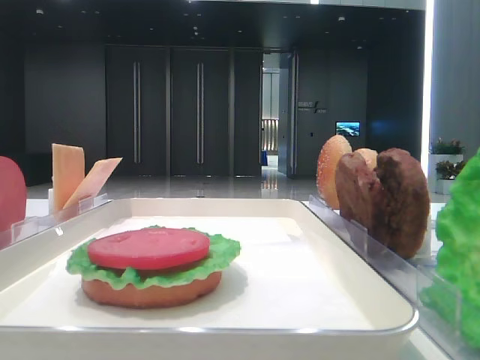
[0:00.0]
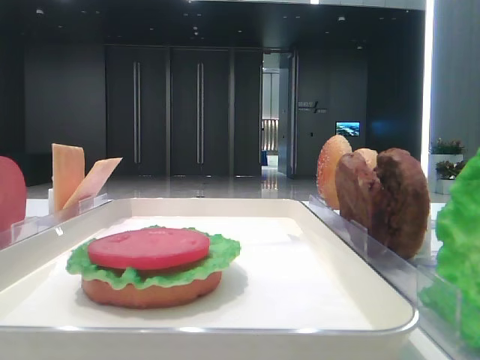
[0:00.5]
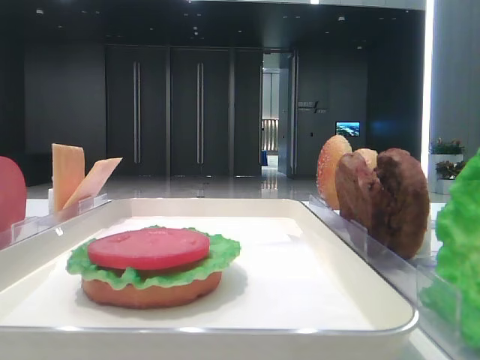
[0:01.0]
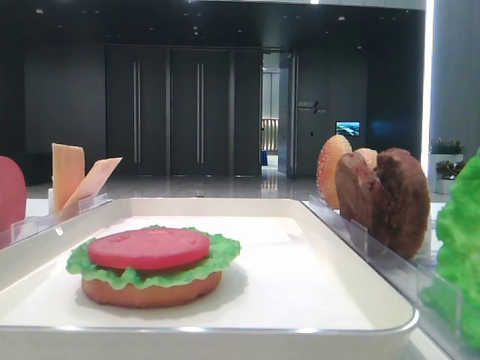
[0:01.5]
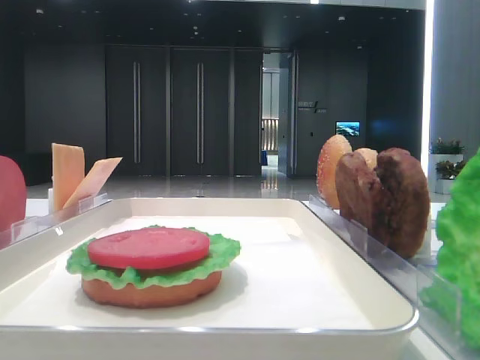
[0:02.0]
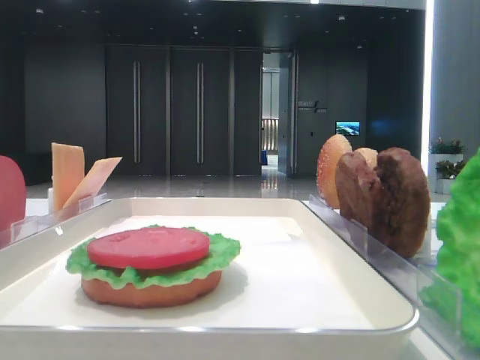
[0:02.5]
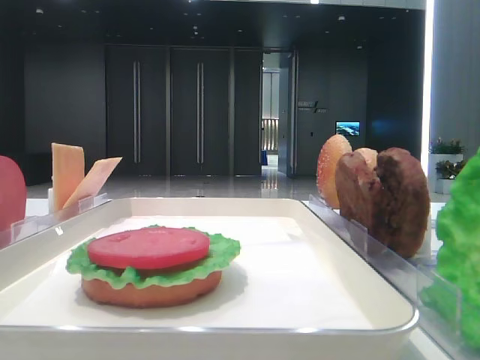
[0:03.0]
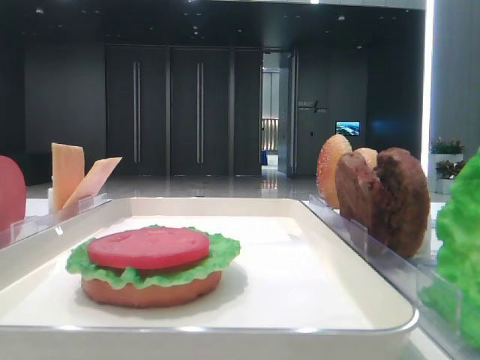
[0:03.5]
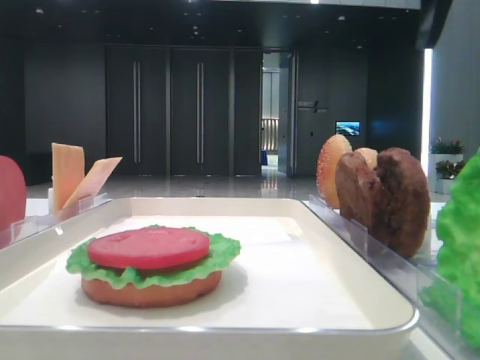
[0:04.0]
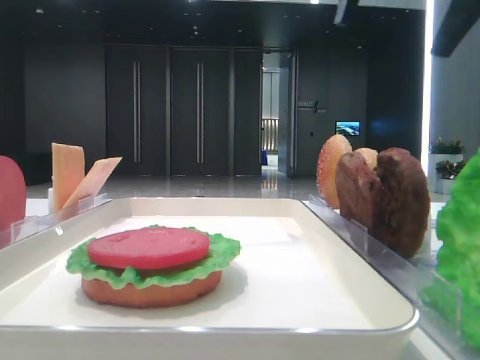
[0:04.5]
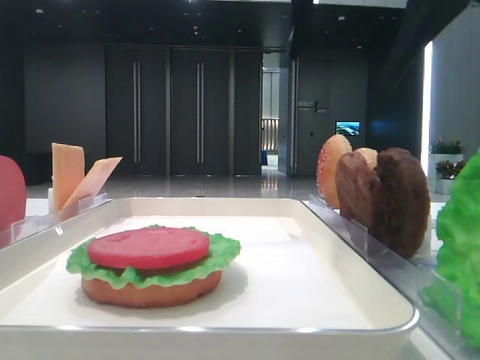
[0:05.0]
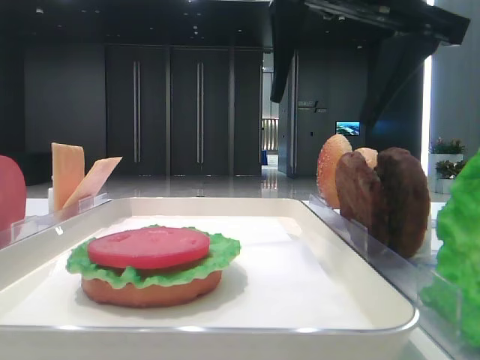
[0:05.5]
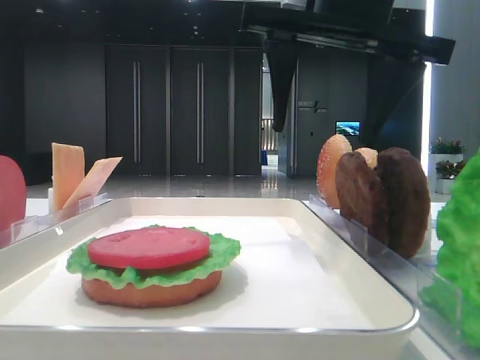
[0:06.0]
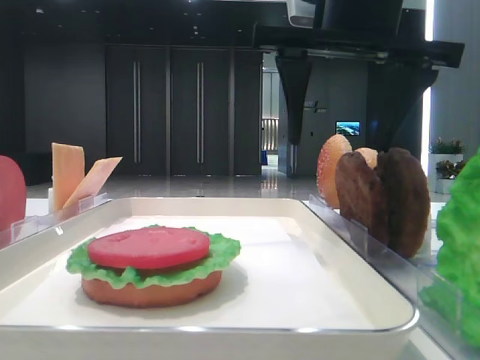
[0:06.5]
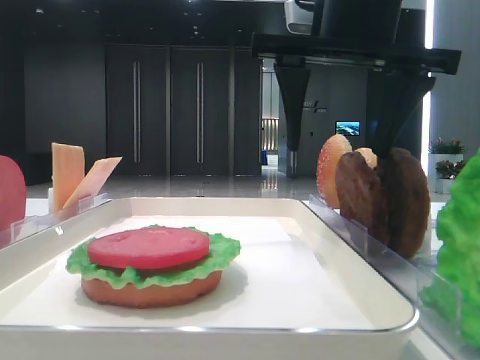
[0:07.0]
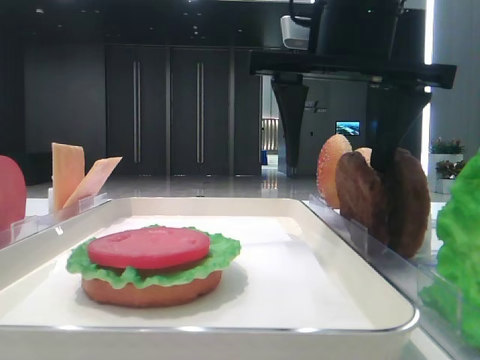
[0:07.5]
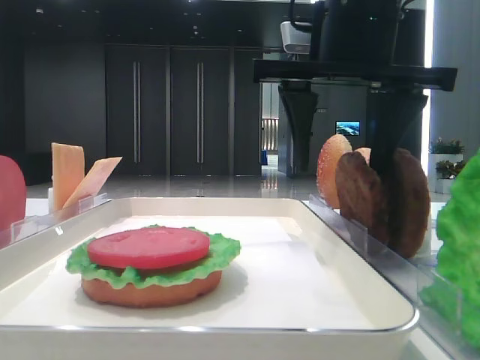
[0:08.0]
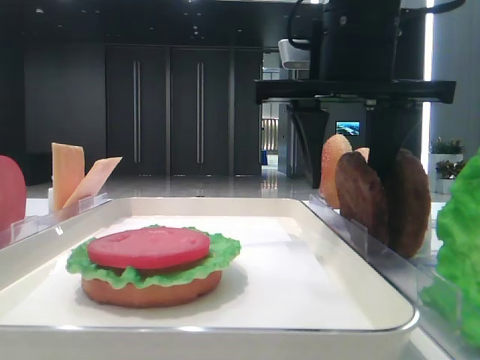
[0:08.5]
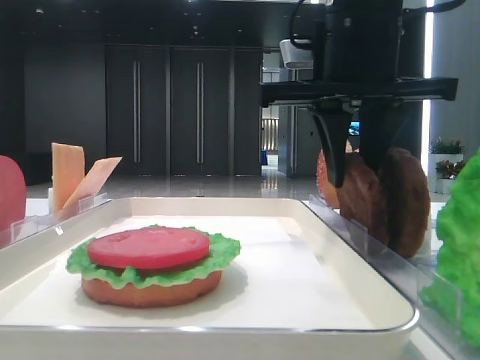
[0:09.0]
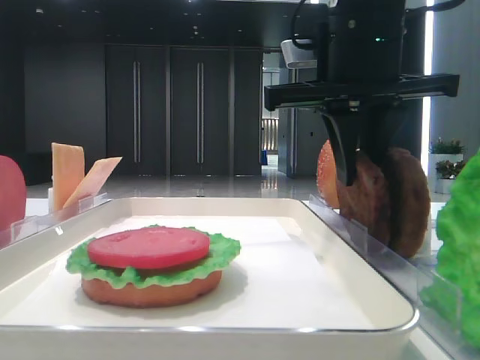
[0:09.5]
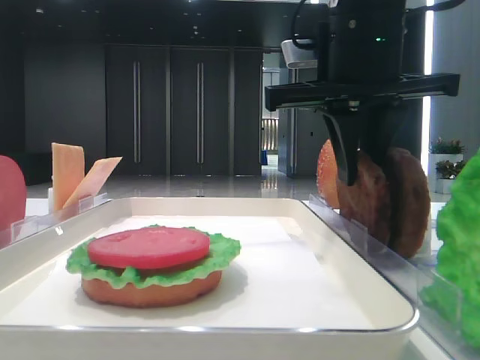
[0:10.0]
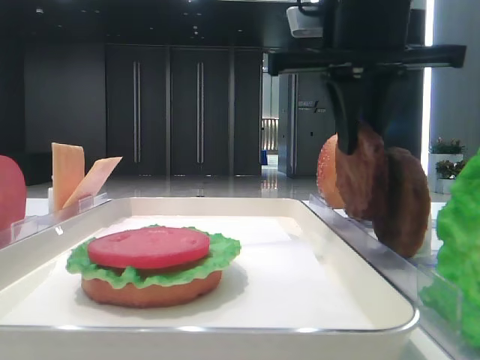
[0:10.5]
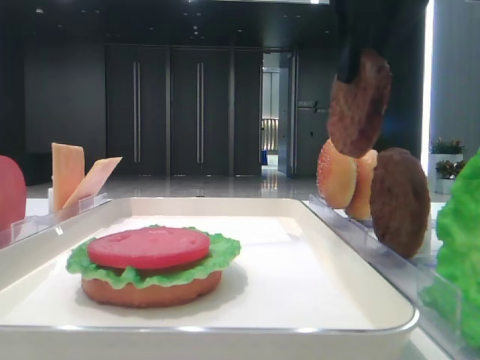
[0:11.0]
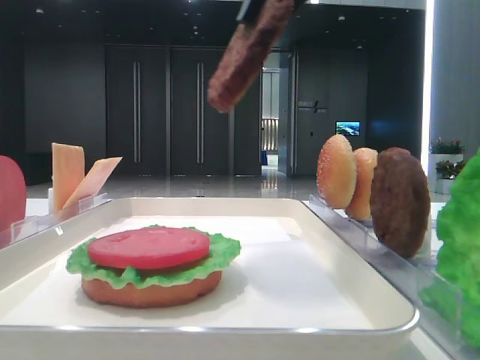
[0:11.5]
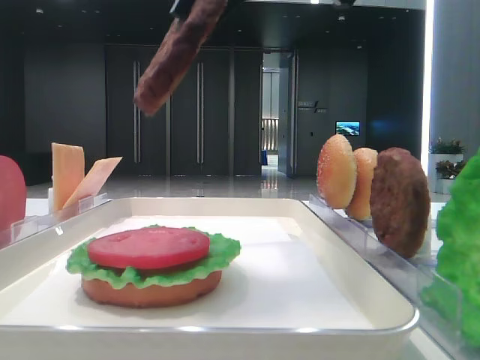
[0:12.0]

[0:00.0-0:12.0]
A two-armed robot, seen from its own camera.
Step, 0:00.0 to 0:09.5: Grab the patty with the right hand.
0:02.0 to 0:04.0: The right gripper goes some 15 cm forward and to the left.
0:04.0 to 0:06.0: The right gripper is displaced to the left and downward by about 15 cm.
0:06.0 to 0:08.0: The grippers move only a little.
0:08.0 to 0:10.0: The right gripper closes up.
0:10.0 to 0:12.0: The right gripper travels upward, backward and to the left by some 15 cm.

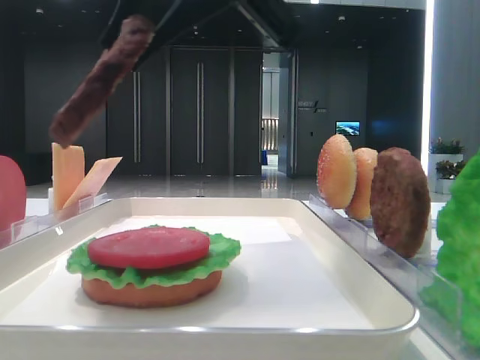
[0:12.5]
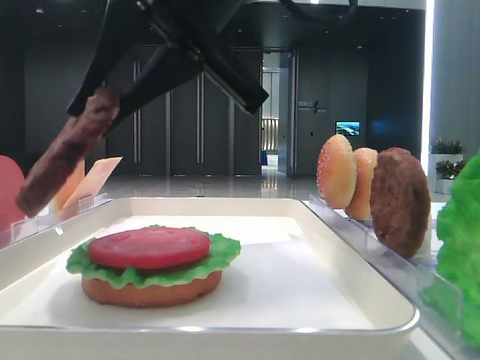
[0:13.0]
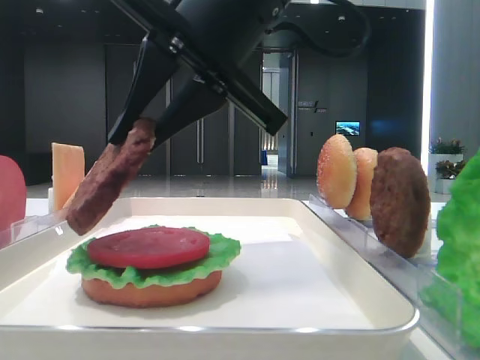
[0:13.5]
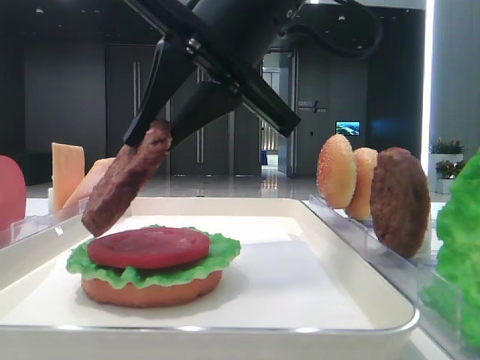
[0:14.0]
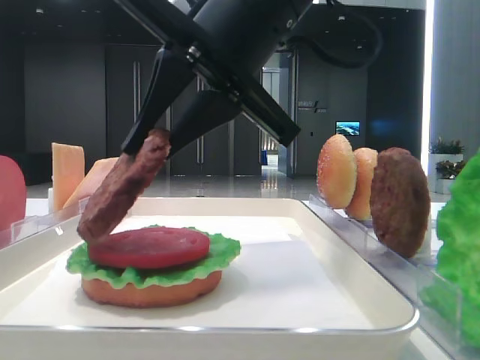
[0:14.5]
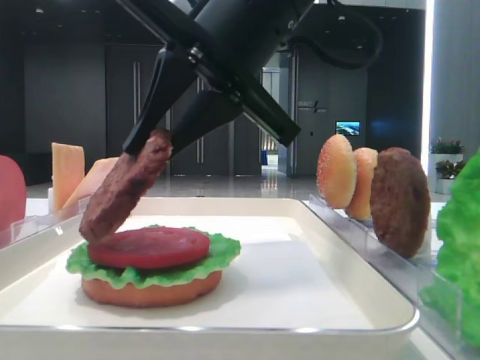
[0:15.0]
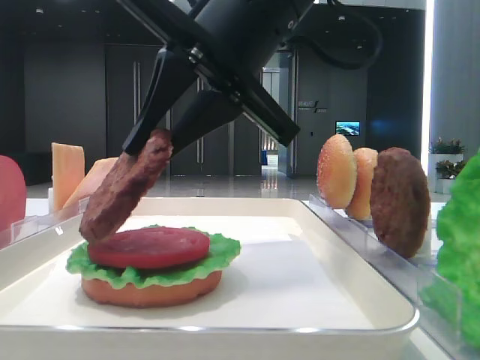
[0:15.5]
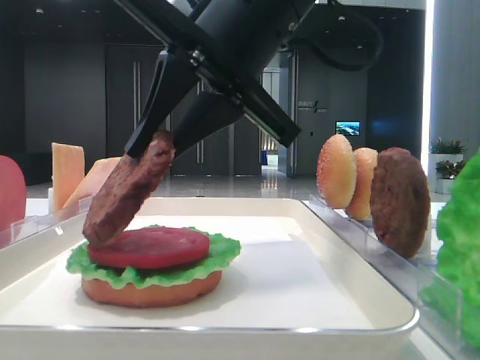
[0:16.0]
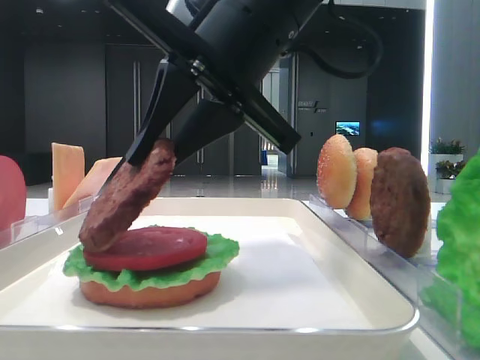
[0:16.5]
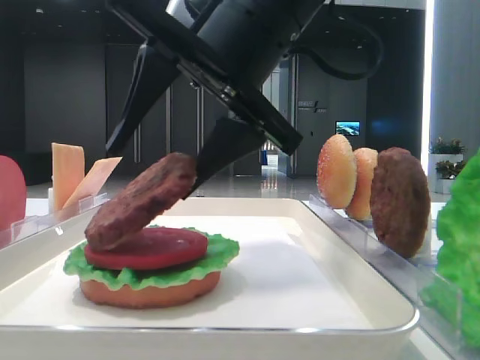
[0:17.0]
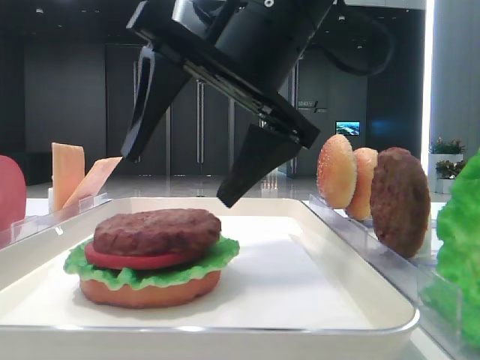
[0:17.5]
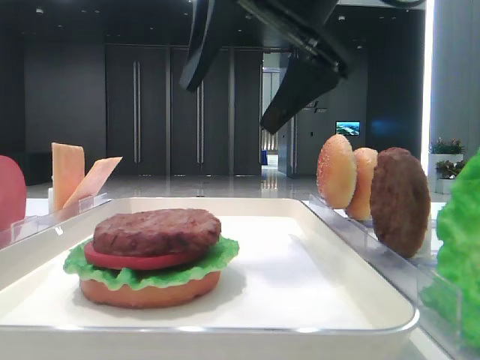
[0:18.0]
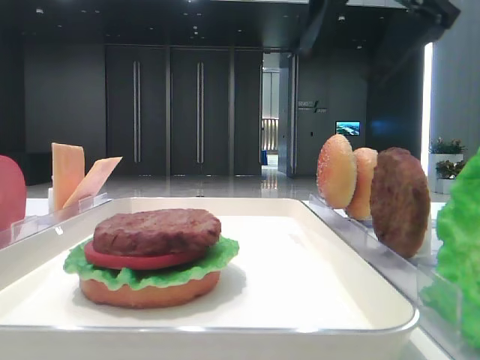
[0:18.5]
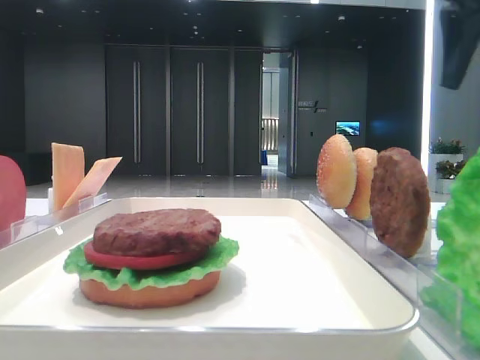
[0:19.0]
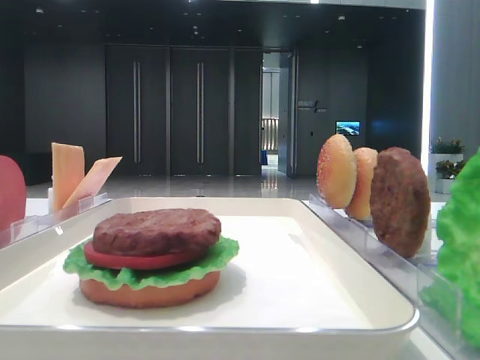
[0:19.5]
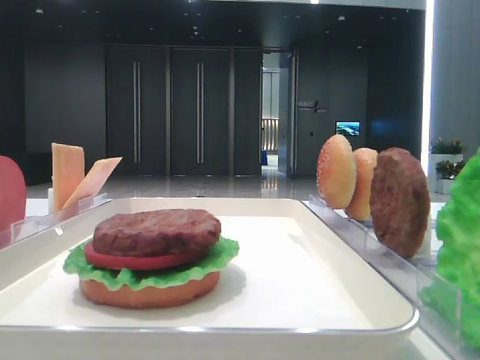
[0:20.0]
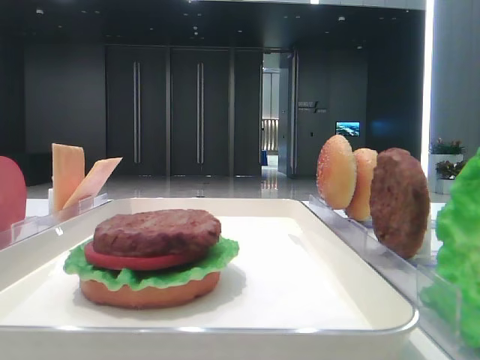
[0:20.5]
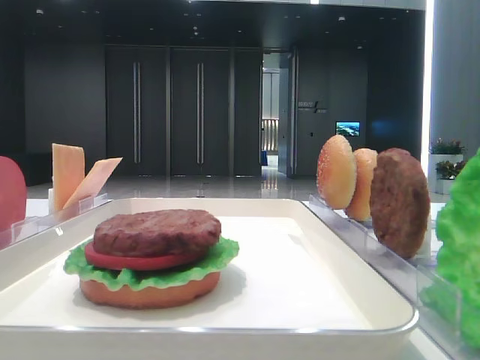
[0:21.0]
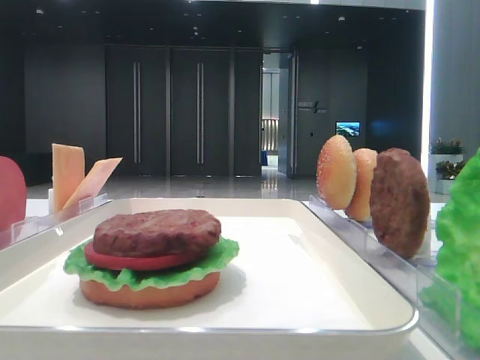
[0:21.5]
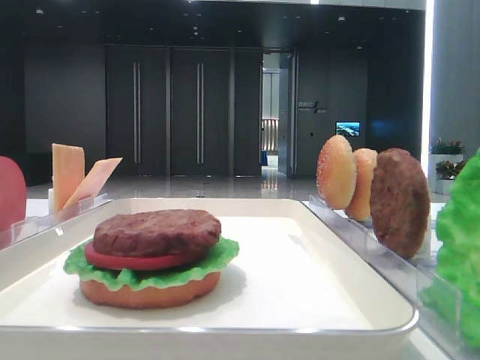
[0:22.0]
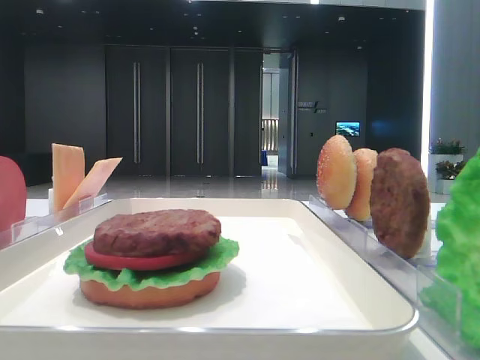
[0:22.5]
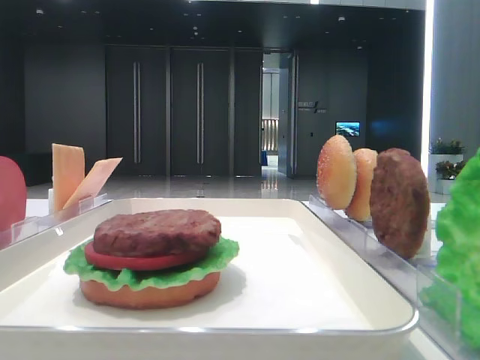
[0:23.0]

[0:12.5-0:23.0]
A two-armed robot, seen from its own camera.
Step, 0:12.5 to 0:17.0: Place the patty on the tomato slice with the right hand.
0:12.5 to 0:14.5: The right gripper travels downward by roughly 5 cm.
0:14.5 to 0:16.5: Both grippers stay about where they are.
0:16.5 to 0:19.0: The right gripper shifts some 25 cm to the right, and opens up.
0:19.0 to 0:21.0: The right gripper heads backward, covering approximately 30 cm.
